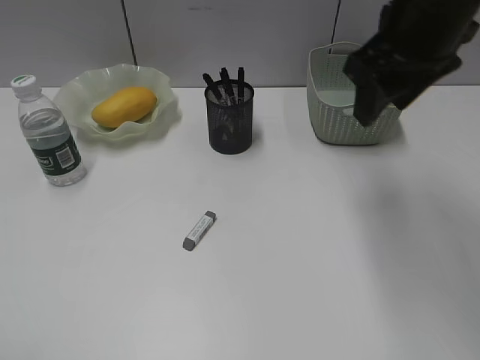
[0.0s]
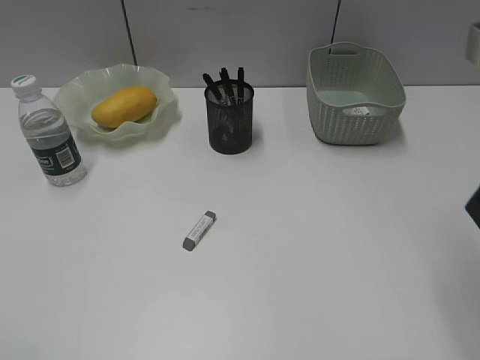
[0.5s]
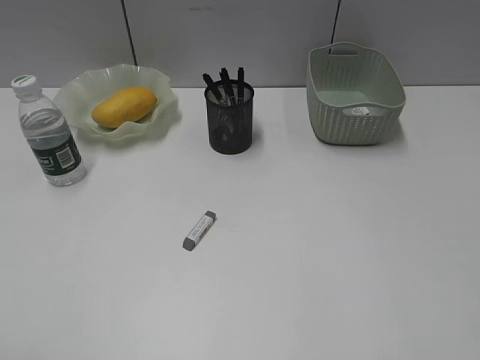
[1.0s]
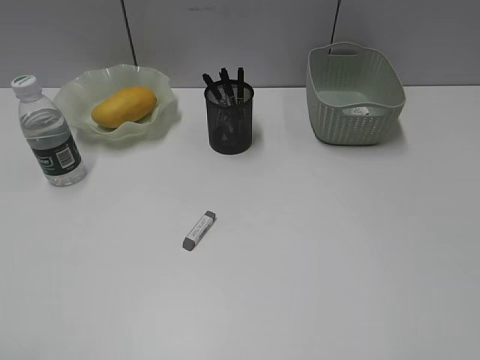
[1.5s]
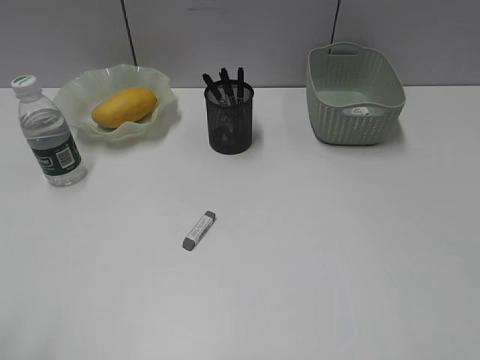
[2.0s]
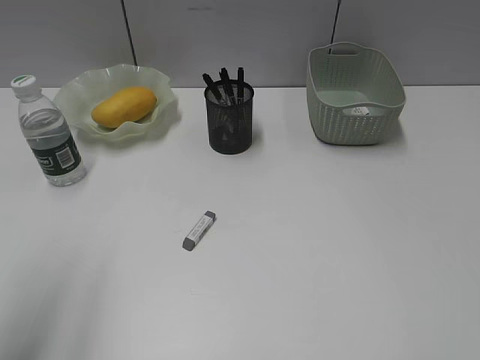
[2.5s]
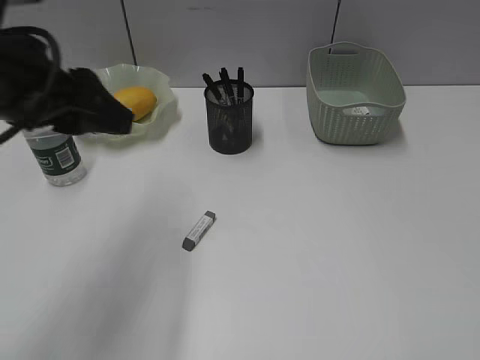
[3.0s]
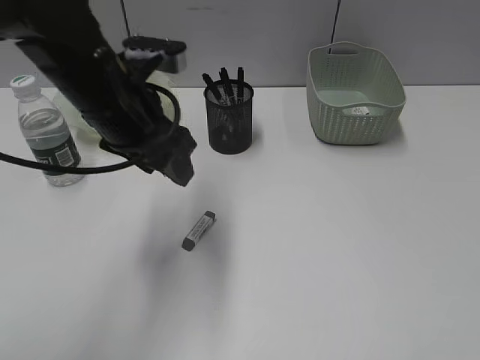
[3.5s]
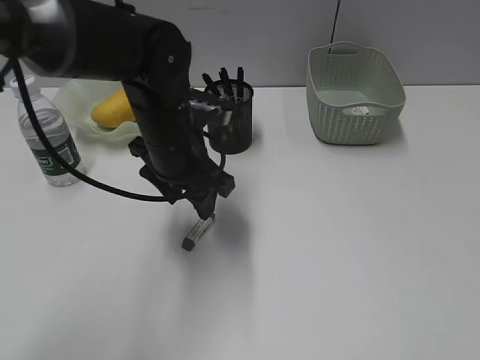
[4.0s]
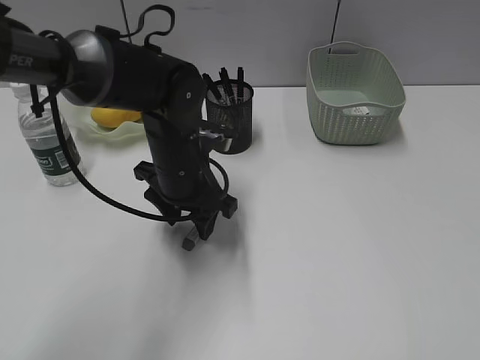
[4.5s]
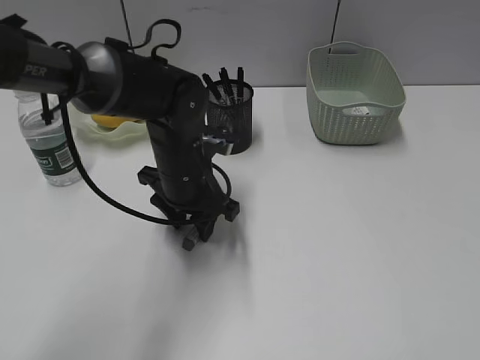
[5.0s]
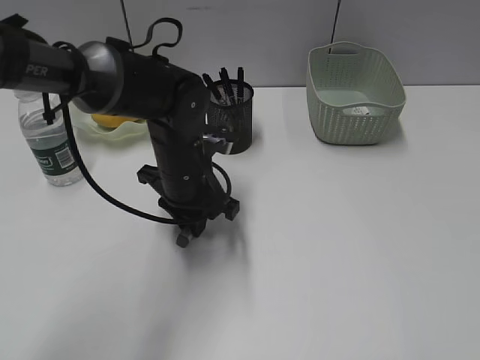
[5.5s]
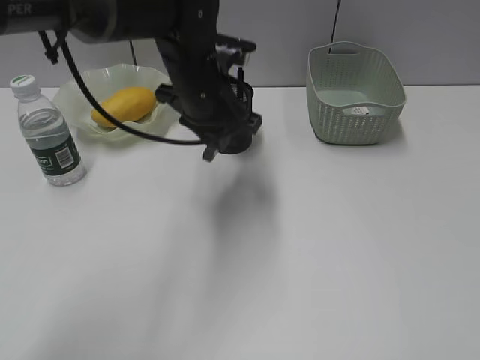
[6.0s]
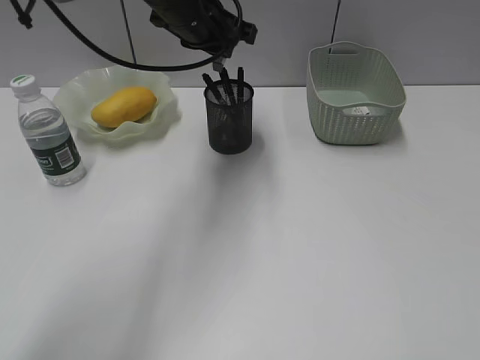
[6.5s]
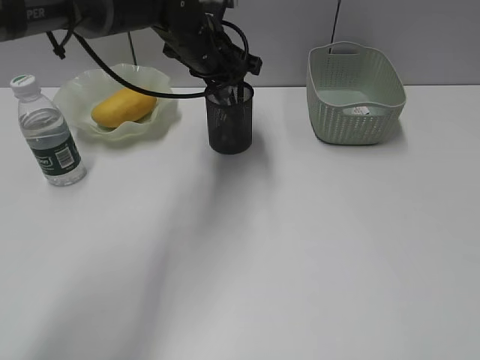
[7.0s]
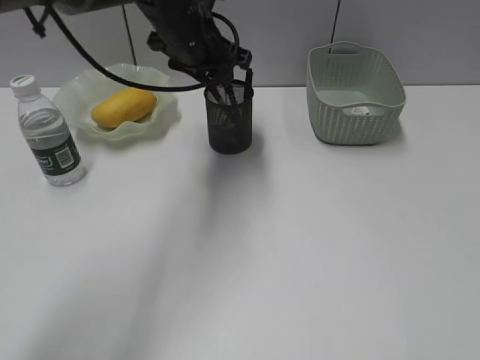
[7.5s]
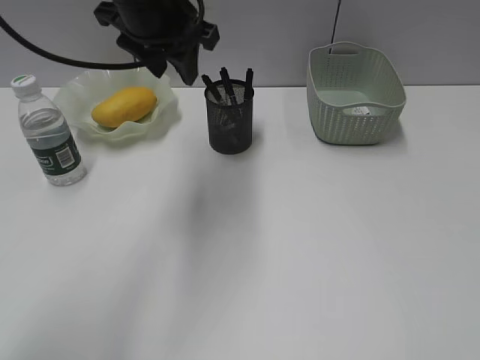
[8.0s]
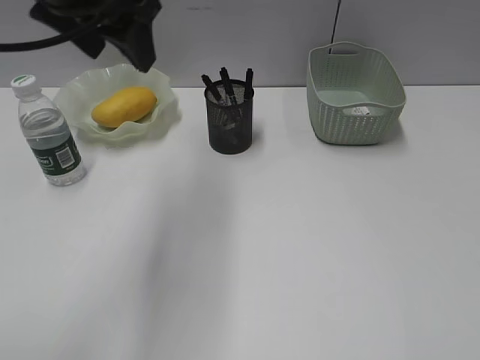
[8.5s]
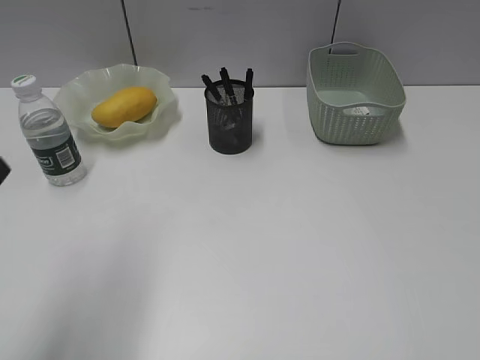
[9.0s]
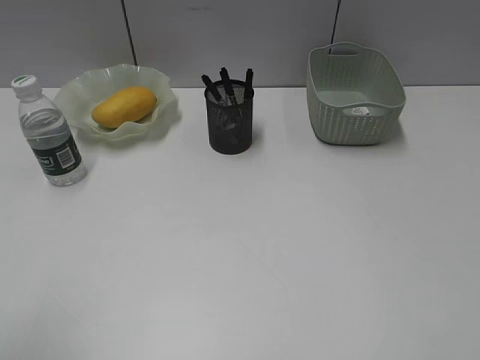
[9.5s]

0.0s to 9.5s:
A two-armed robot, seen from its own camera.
Step, 0.0s to 5.5s: Grasp the eraser with left gripper.
Step, 6.0s to 7.5s: Place the eraser in pen holder with left gripper.
0.0s to 2.0s: The right gripper travels backward and to the right by roughly 30 cm.
2.0s to 4.0s: The left gripper travels forward, to the right and downward by approximately 40 cm.
4.0s to 5.5s: The left gripper travels downward by some 5 cm, and closes its fingers.
5.5s to 7.5s: The left gripper goes about 15 cm upward and forward, and opens its fingers.
7.5s to 9.5s: The left gripper is displaced backward and to the left by some 50 cm.

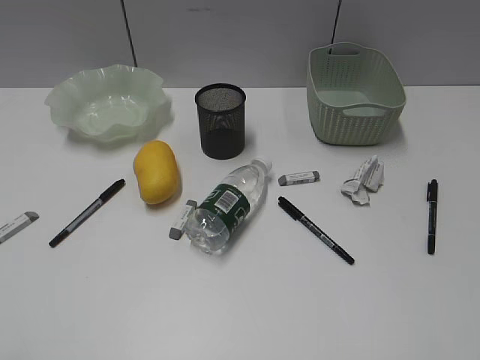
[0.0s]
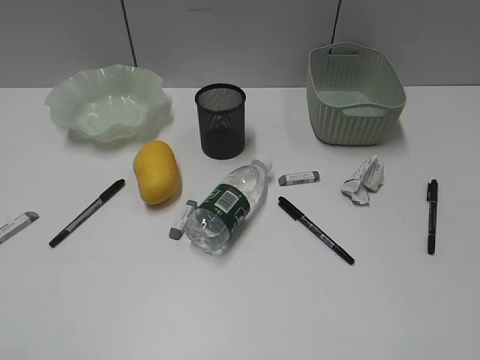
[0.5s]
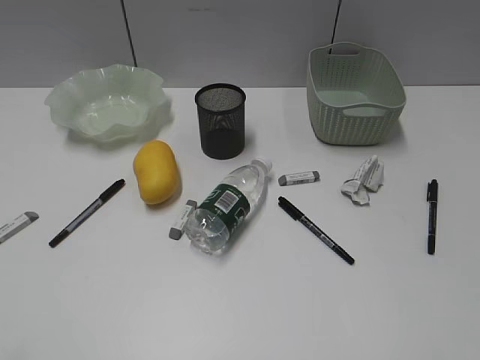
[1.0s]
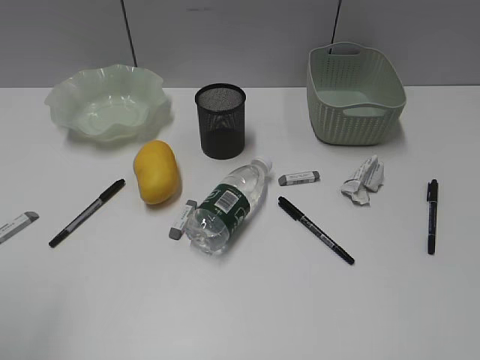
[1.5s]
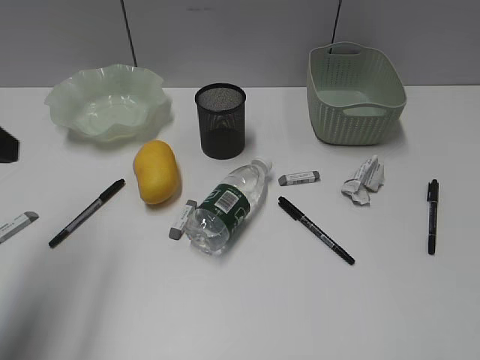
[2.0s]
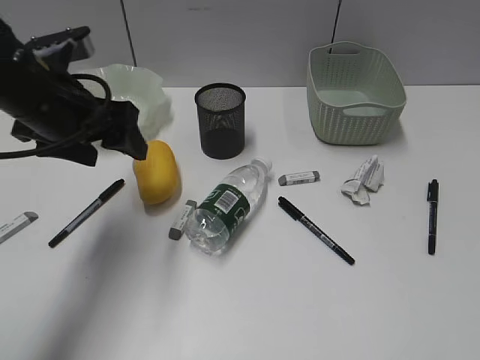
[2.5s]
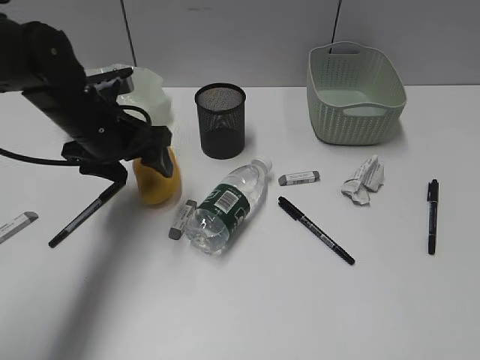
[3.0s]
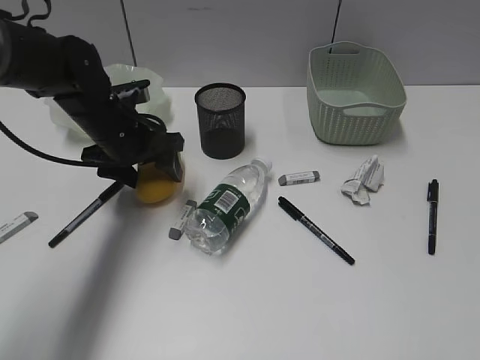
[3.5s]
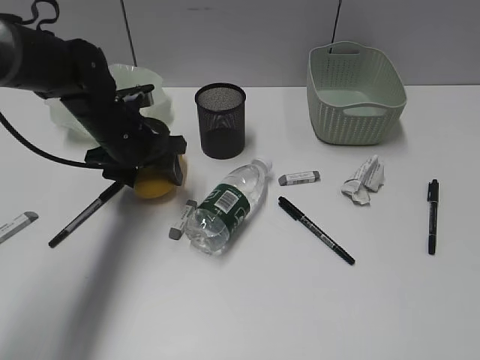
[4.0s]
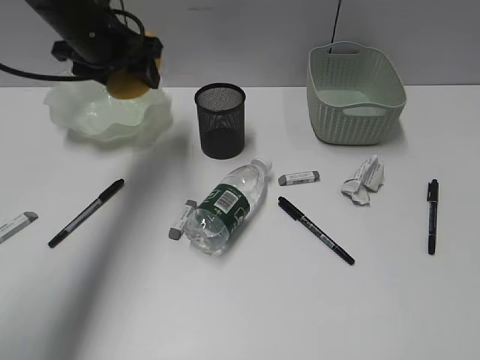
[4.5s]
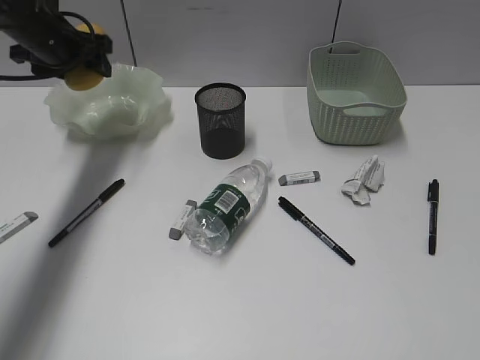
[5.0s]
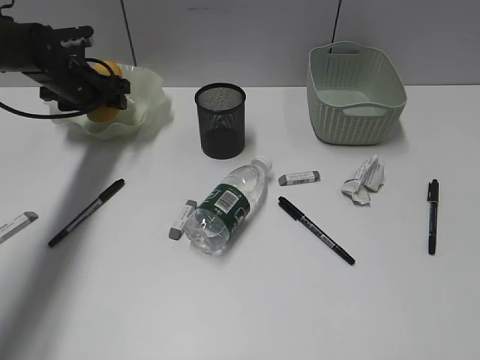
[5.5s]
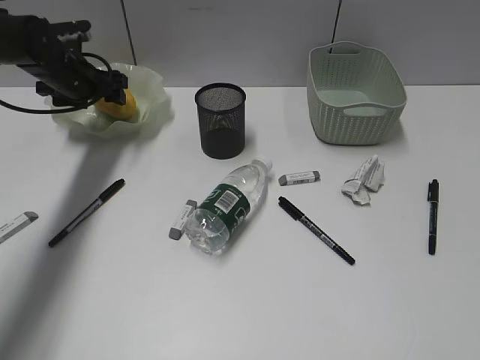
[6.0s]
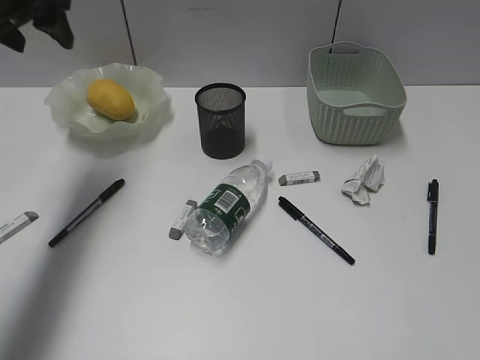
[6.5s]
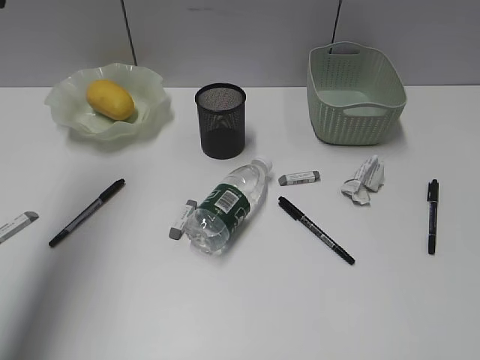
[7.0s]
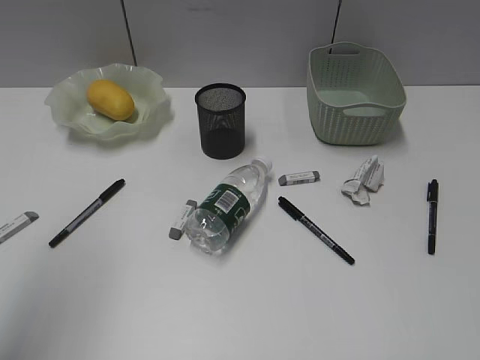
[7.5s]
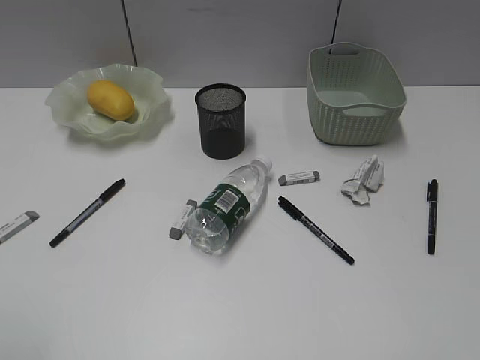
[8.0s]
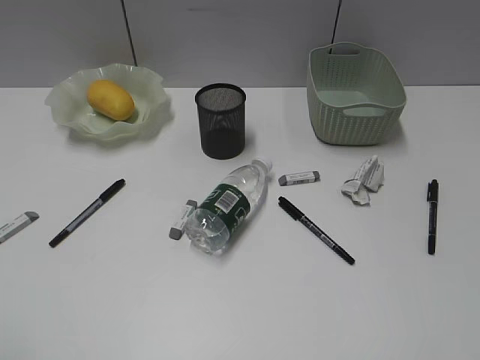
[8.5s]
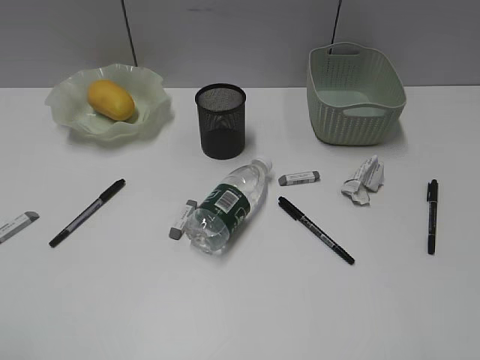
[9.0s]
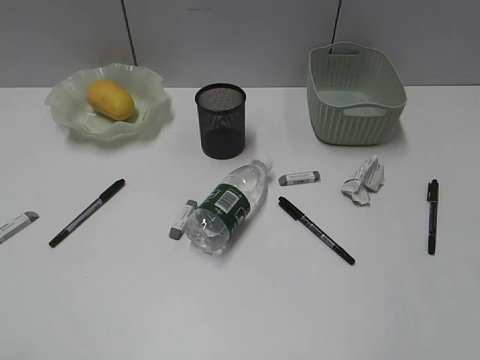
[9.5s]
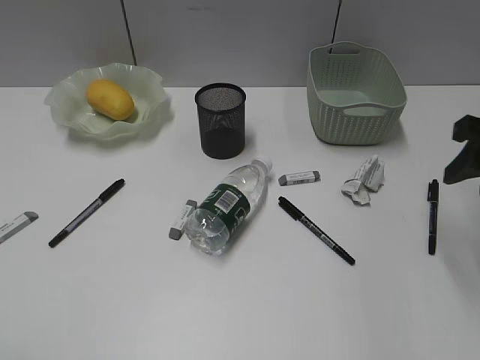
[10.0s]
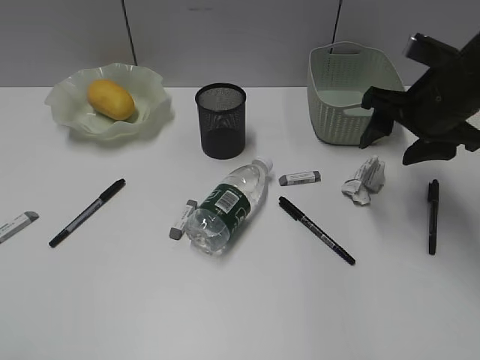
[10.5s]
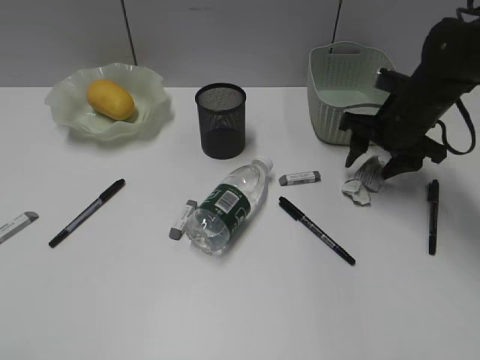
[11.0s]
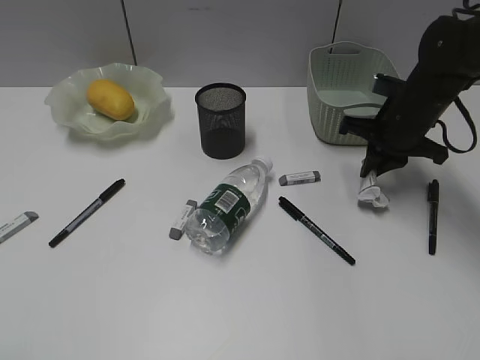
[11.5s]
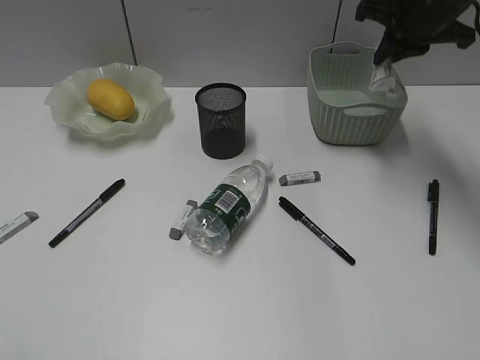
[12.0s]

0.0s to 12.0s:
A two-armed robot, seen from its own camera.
Step, 2.0s to 3.5s: Grasp the mango with left gripper.
Step, 4.0s to 6.0s: Place the mango in the plate with left gripper.
Step, 6.5s to 11.0s: Grasp the waste paper with right gripper.
2.0s to 4.0s: The left gripper heads forward, downward and to the right, covering approximately 25 cm.
4.0s to 6.0s: The left gripper is displaced forward and to the left by about 15 cm, and reaches some 10 cm upward, then returns.
6.0s to 8.0s: The left gripper travels backward by some 50 cm.
8.0s to 10.0s: The right gripper heads forward, covering about 25 cm.
10.0s to 12.0s: The right gripper travels forward and to the left by approximately 20 cm, and closes its fingers.

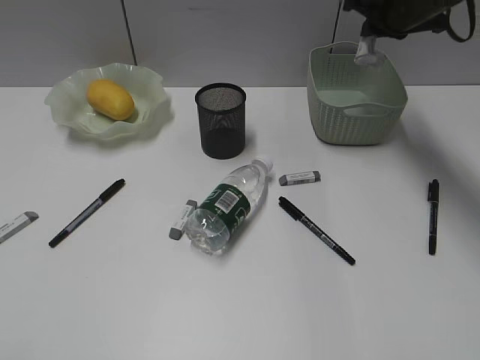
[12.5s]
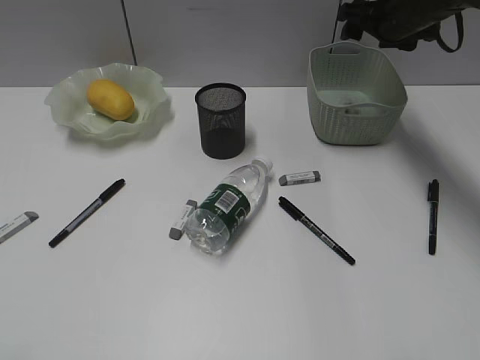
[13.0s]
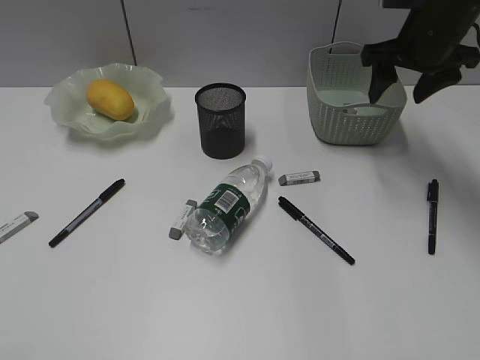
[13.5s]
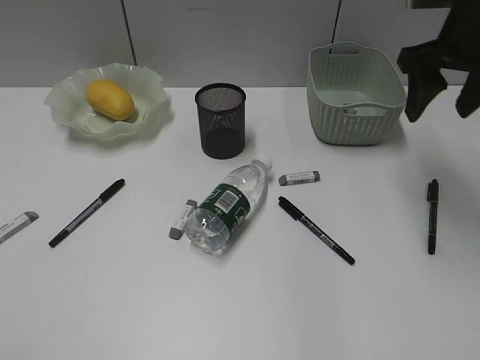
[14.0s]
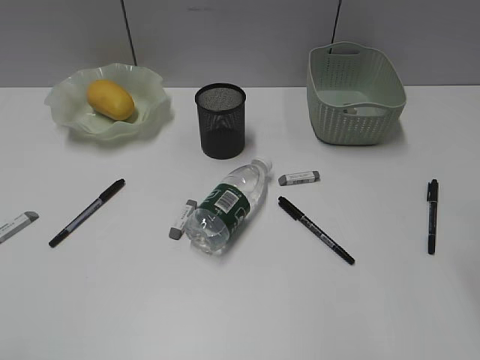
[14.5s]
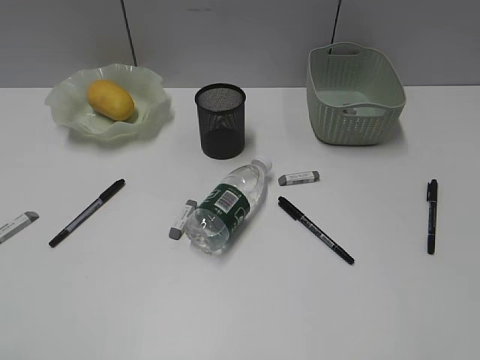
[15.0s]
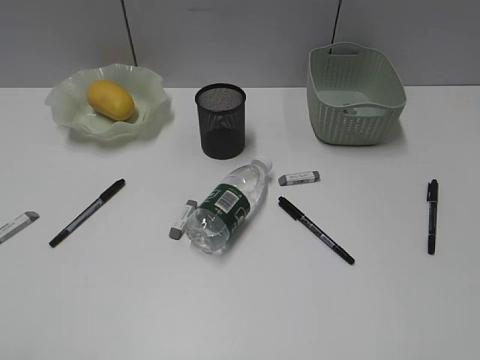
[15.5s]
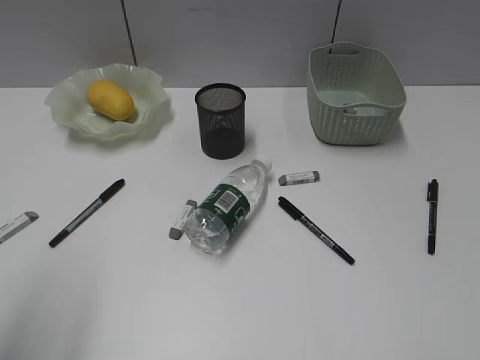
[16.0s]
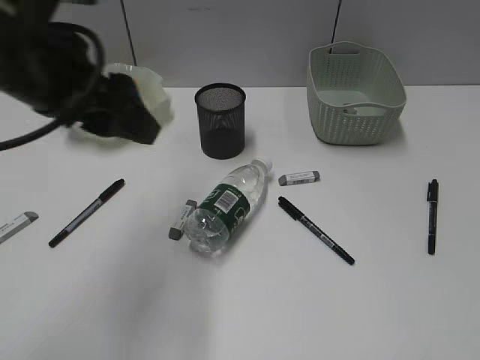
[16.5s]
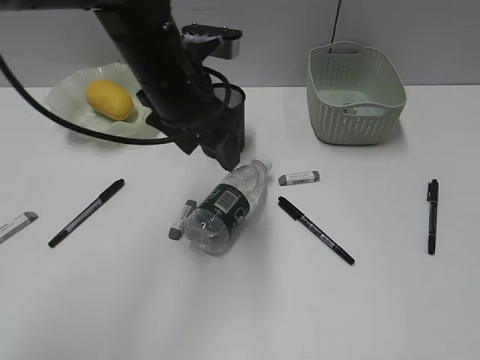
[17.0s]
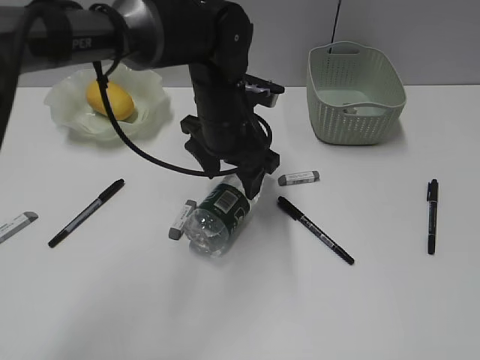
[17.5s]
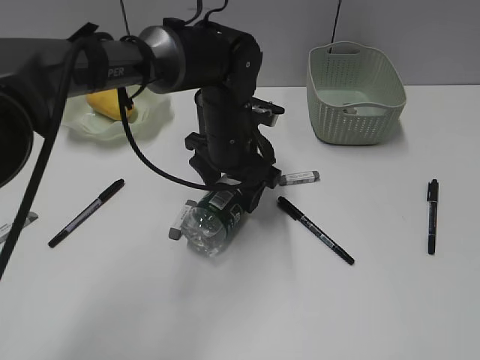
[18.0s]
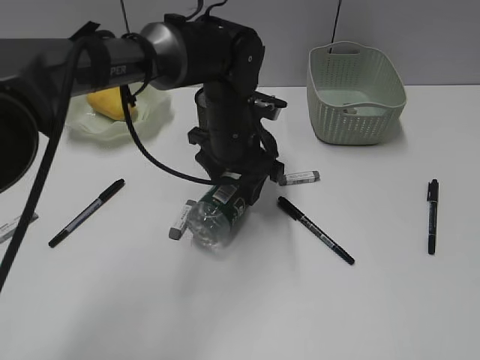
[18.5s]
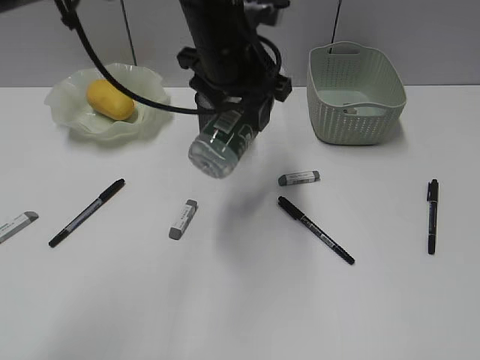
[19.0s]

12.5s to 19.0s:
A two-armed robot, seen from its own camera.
Step, 13.0s to 18.0s: Grasp the bottle with left gripper.
12.5s to 14.5s: The right gripper goes some 30 cm backward, and opens up.
14.5s to 17.0s: The right gripper goes approximately 20 cm backward. Meanwhile the left gripper goes about 40 cm forward and to the right.
17.0s to 19.0s: The left gripper moves to the right, about 5 cm, and goes downward and returns, about 10 cm each way.
